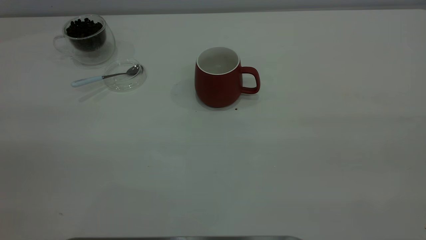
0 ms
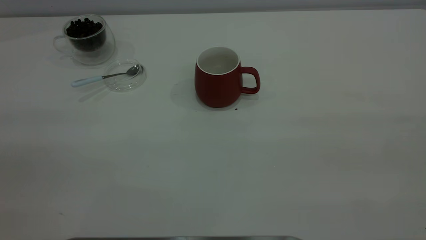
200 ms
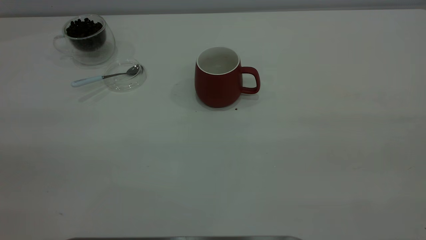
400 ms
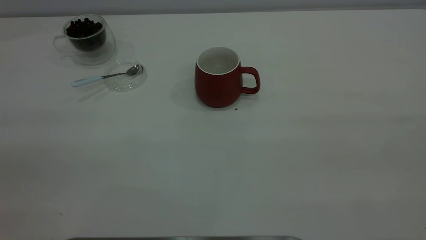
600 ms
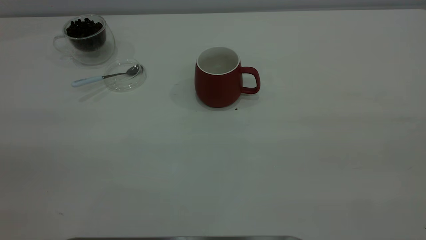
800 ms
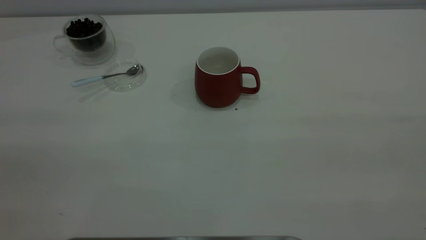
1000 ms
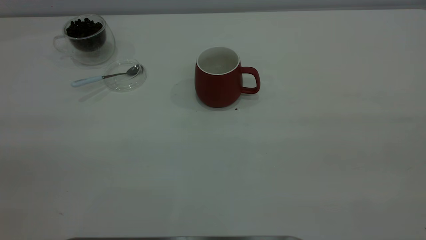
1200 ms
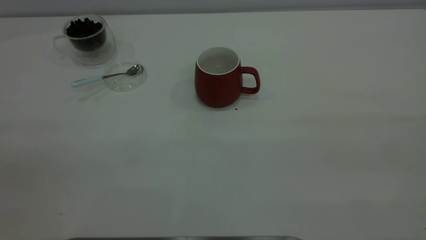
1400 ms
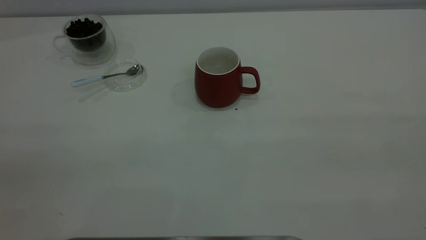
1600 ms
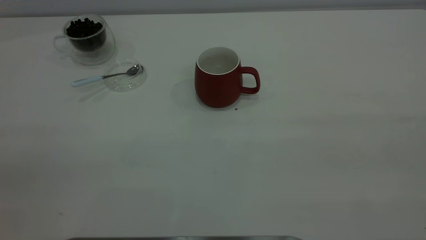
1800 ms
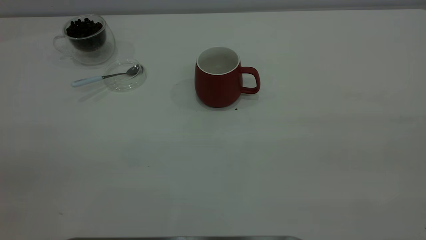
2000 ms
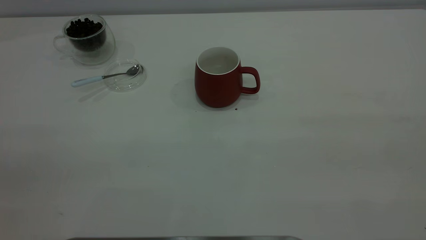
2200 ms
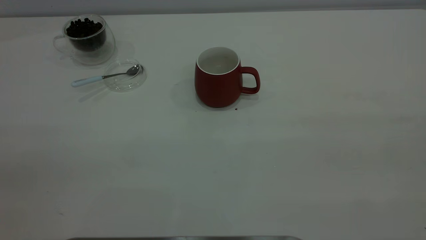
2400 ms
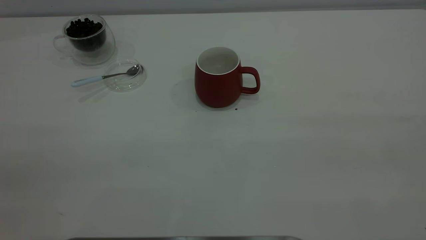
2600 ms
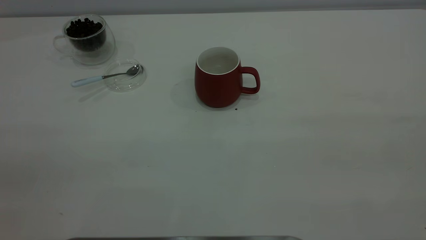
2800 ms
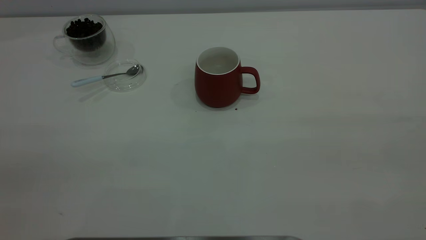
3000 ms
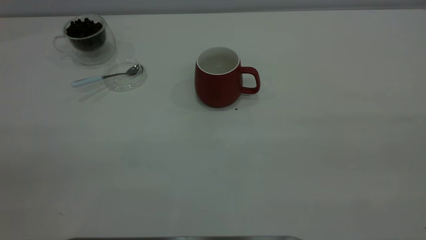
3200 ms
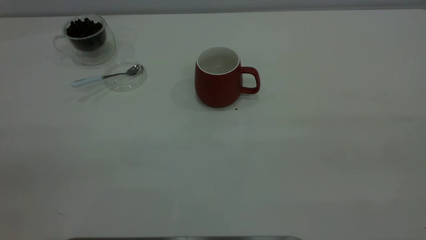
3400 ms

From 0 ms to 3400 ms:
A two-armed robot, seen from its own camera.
Task of the whole recording: the right gripper place the red cup in the center of the table, the left gripper take the blue spoon from the cup lid and scoop out the coffee beans from the coffee cup and put them into the red cup, the left gripper put the spoon back into the cup lid.
From 1600 ms to 3400 ms: Both grippers stay put.

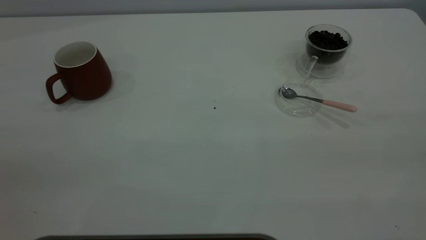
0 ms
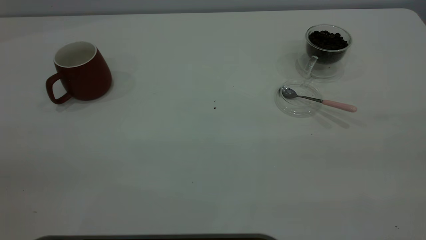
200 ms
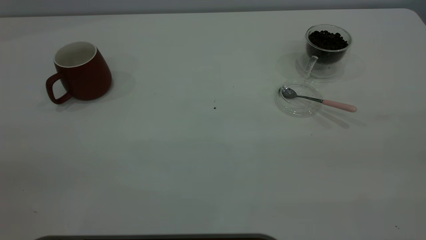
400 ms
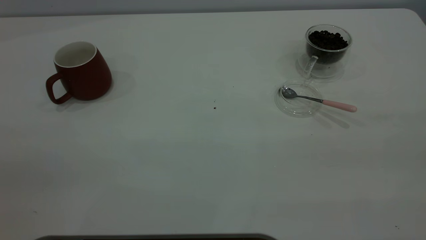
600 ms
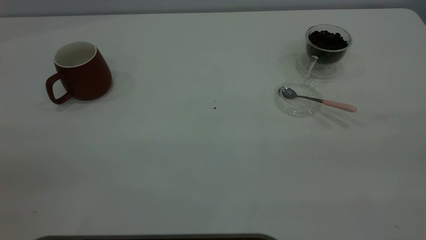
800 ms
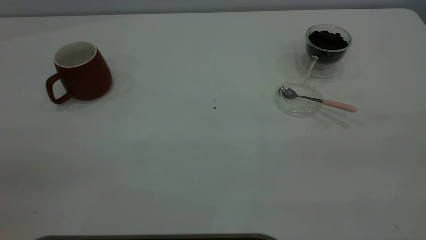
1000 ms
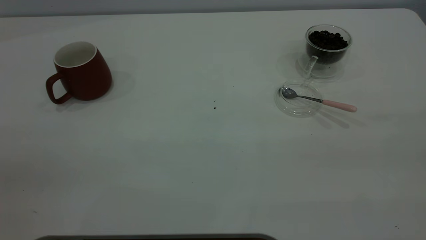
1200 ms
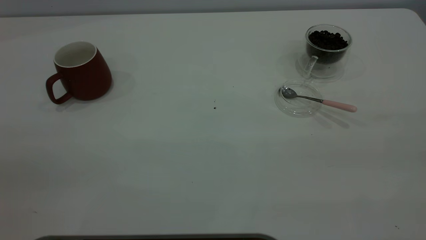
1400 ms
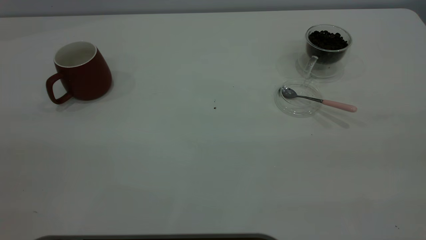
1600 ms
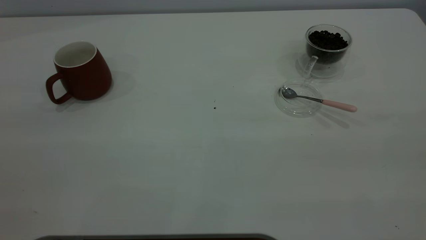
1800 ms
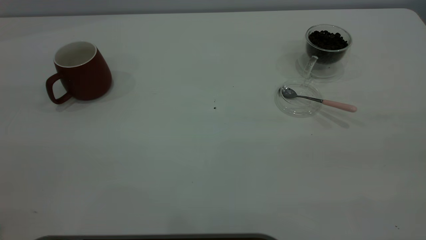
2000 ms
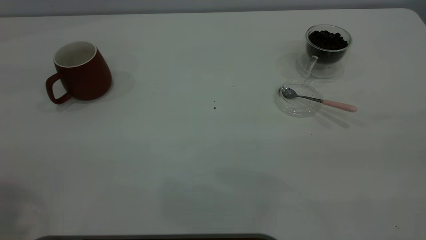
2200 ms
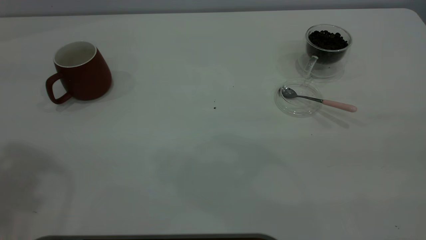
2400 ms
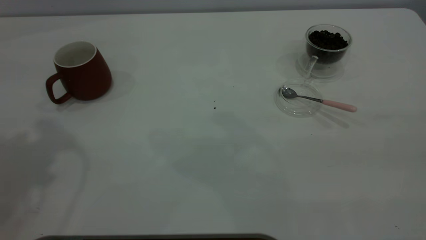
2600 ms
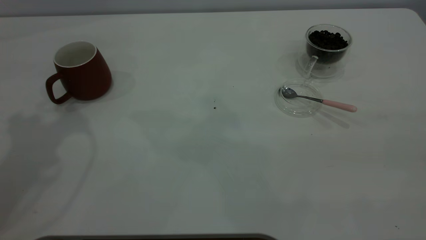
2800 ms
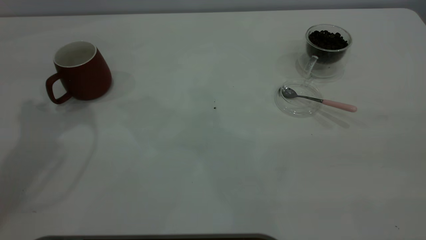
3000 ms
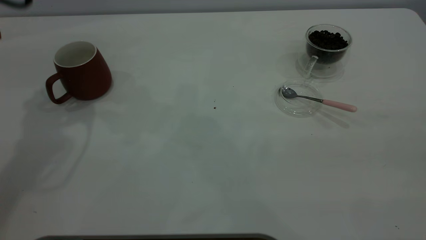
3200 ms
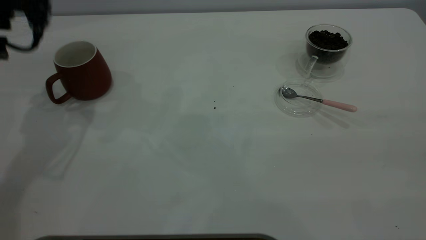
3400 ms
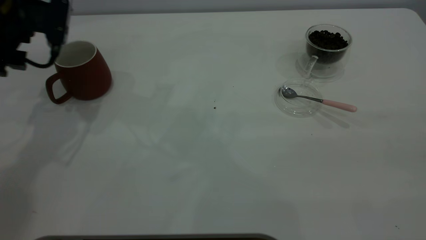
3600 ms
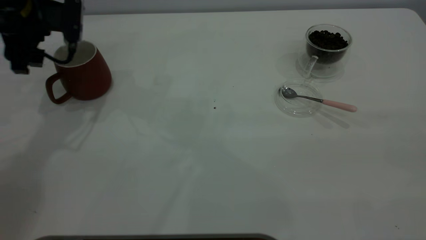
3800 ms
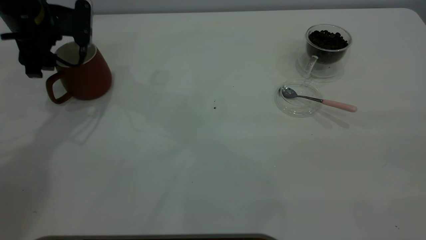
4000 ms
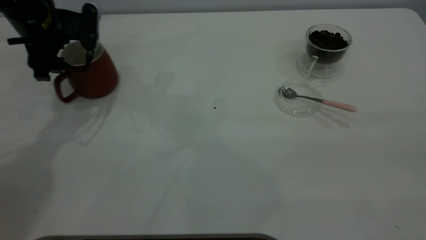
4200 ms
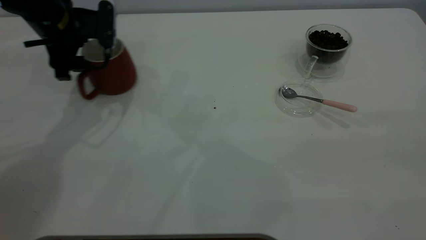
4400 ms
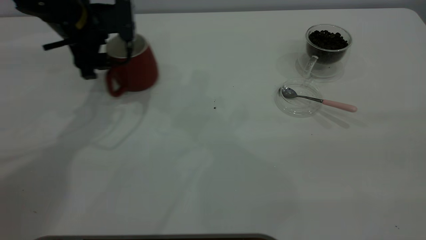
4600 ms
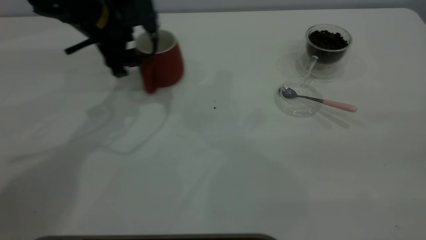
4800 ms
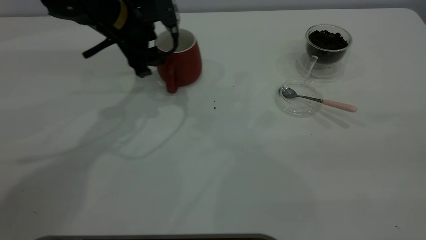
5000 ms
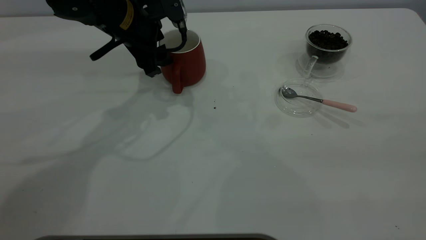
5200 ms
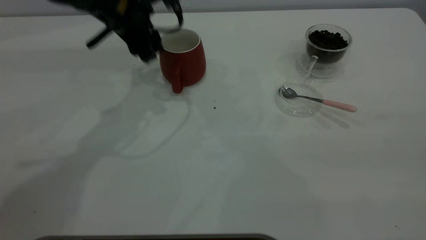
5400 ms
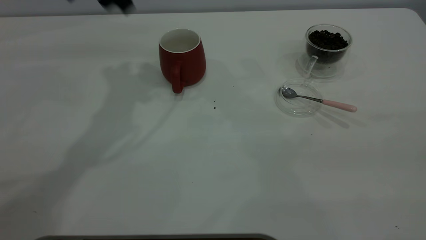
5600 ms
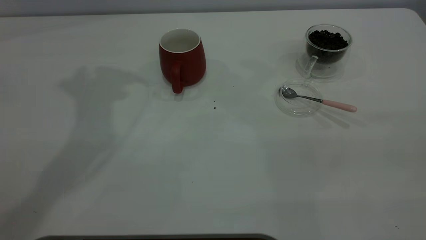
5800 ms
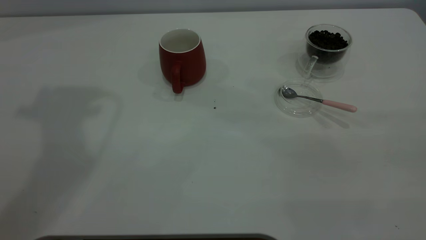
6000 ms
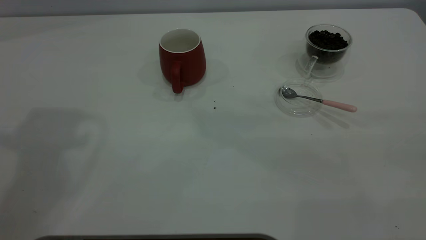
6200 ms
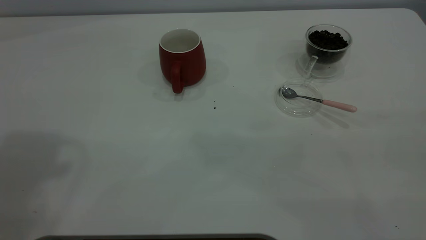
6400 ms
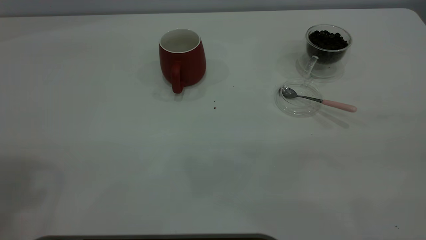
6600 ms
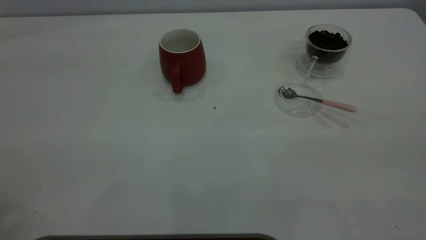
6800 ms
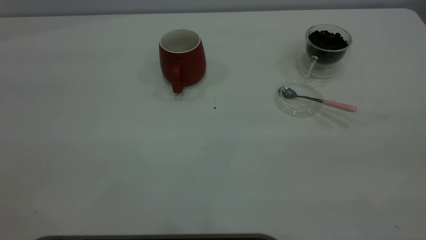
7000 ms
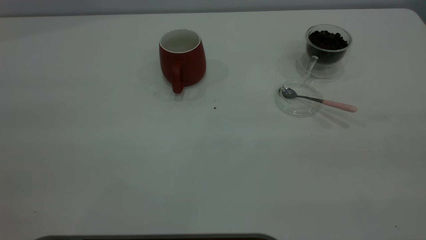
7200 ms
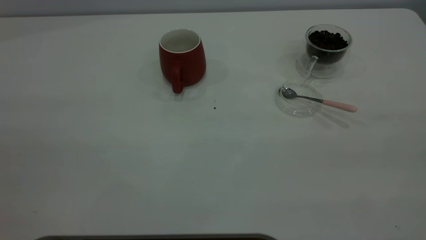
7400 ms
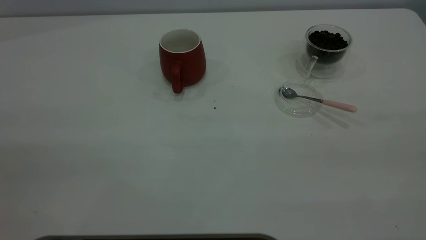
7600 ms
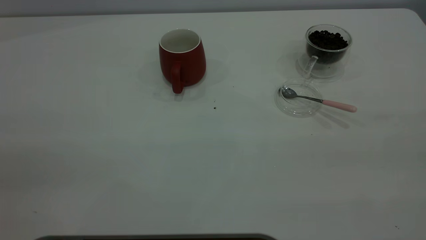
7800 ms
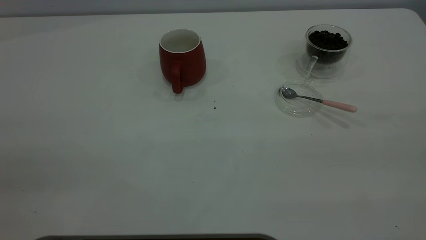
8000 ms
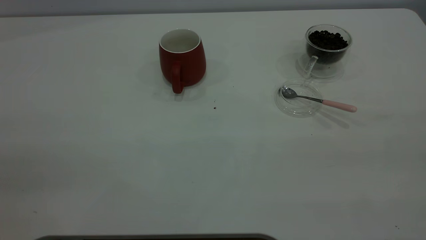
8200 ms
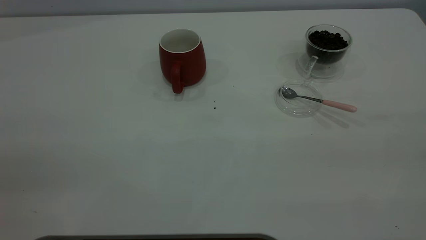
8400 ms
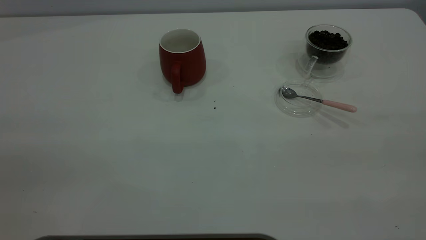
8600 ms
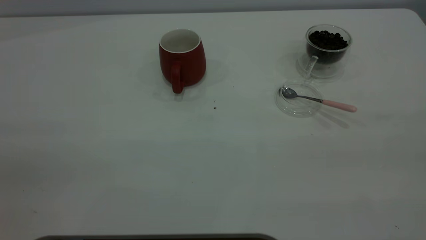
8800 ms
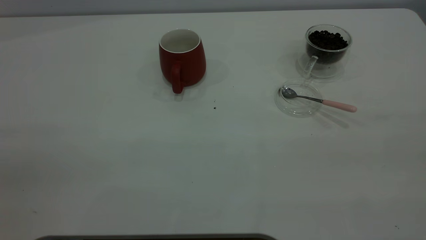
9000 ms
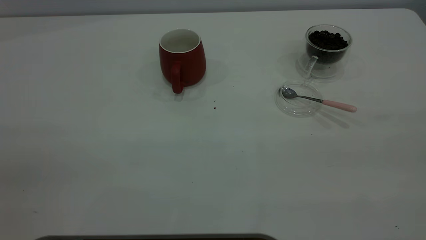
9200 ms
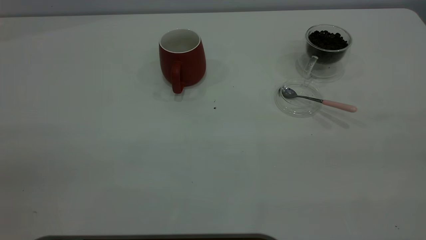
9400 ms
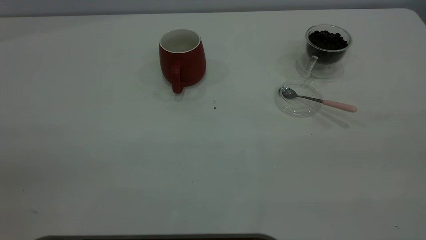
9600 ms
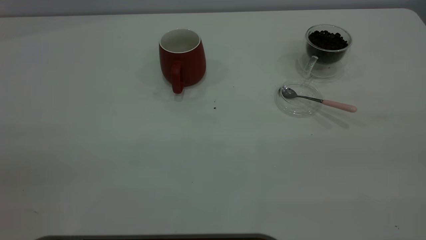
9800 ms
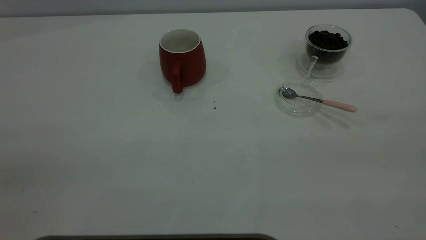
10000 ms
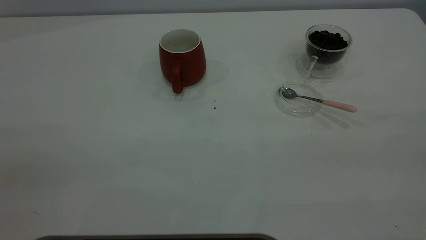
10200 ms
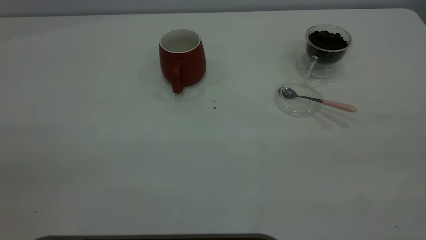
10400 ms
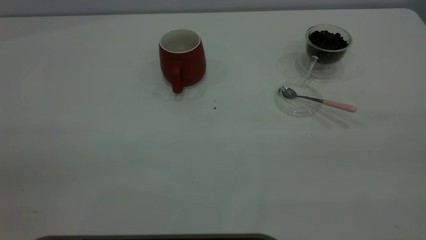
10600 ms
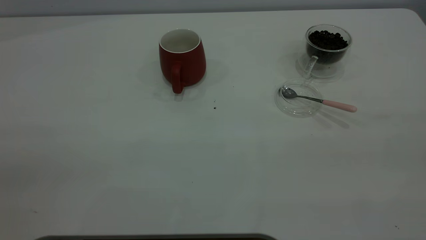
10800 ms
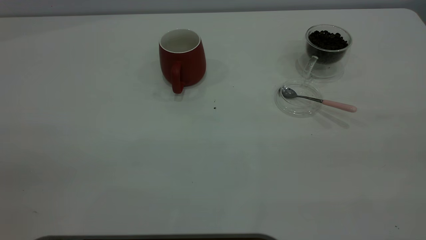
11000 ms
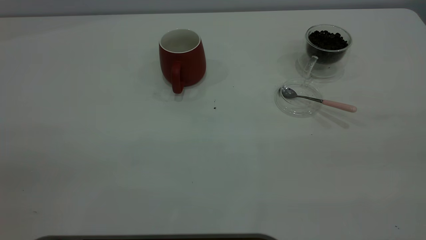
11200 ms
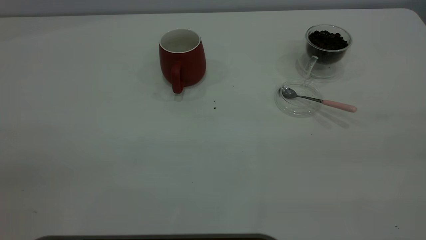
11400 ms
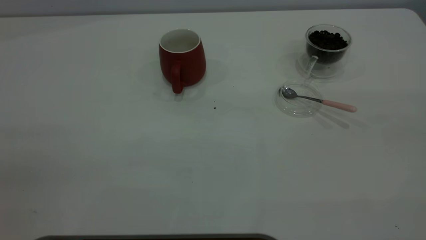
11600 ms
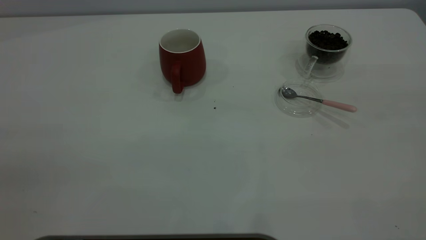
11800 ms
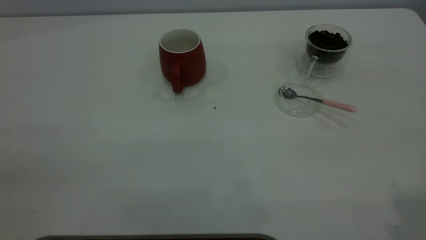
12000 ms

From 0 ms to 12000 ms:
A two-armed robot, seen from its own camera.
Task of the whole recording: the left gripper place the red cup in the center of the table, the right gripper take the pink spoon from the cup lid and scoop out the coffee beans from the coffee cup and put them into the red cup, the right gripper put the spoon back into the cup lid.
Step, from 0 ms to 5400 ms: Move the cup to the center of view.
From 3000 ms to 4400 ms: The left gripper travels downward and forward by roughly 20 cm.
From 4400 ms to 6000 ms: The left gripper goes about 30 cm upward.
From 9000 ms to 10400 ms: Both grippers stay about where they are.

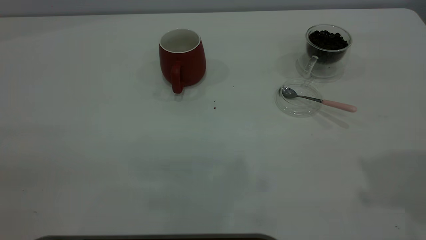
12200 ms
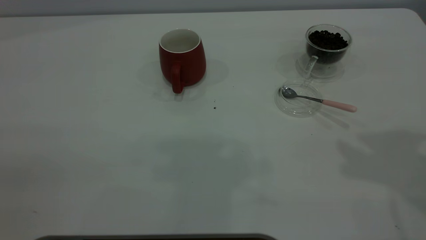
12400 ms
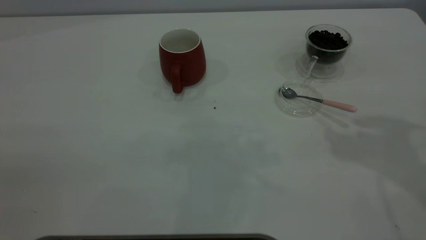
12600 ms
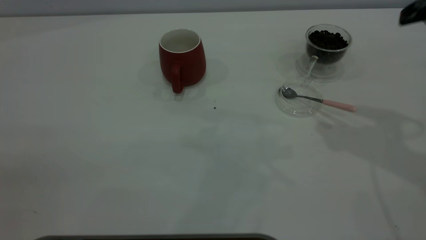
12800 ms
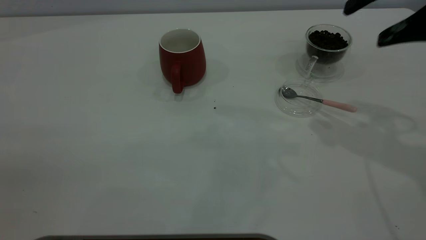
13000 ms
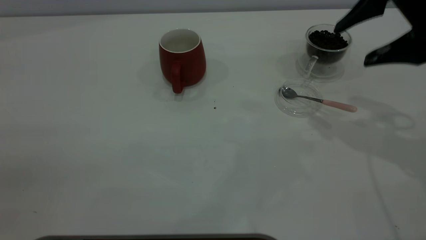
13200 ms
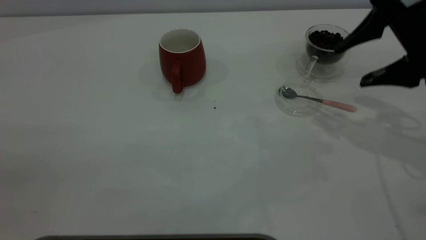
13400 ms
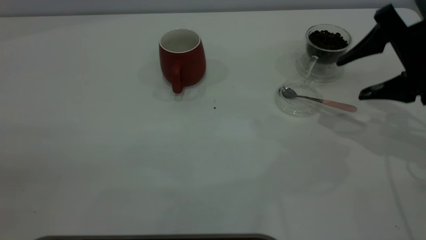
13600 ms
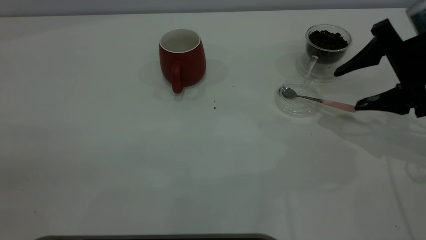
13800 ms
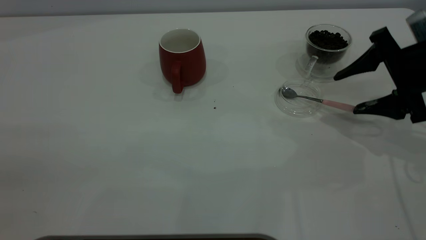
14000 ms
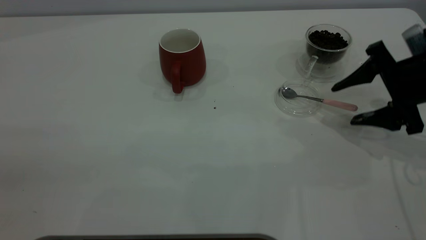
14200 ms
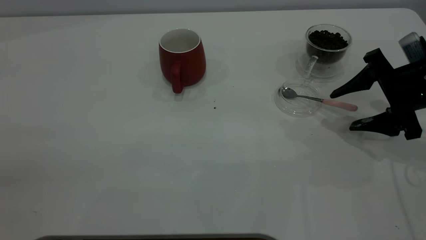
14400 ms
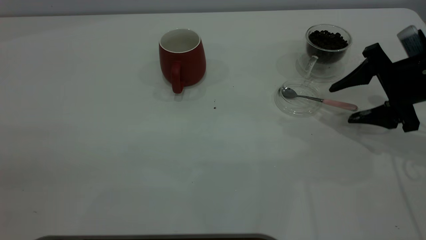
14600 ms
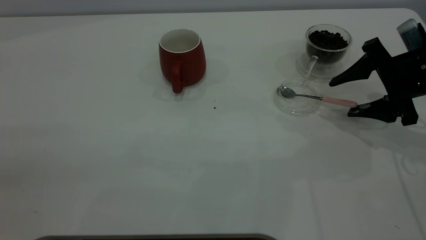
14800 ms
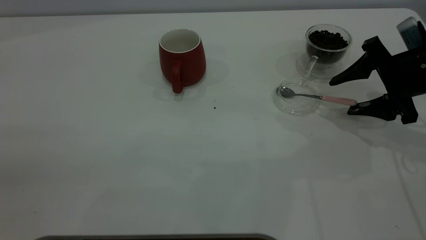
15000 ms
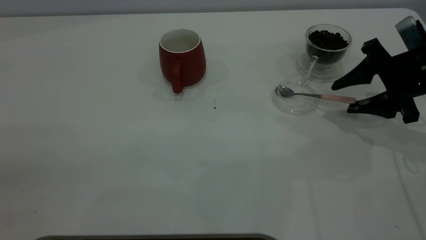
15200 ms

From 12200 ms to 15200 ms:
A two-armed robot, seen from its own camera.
Task of the whole recording: the left gripper place the red cup in the center of the table, the right gripper take the pink spoon from the cup lid and scoop out the coffee beans from the coffee cup and put them into the red cup, the right gripper put the spoon back into the cup lid.
From 12200 ms to 13800 ms: The right gripper shifts about 30 cm downward and forward.
From 13800 ms to 15200 ms: The right gripper closes up.
